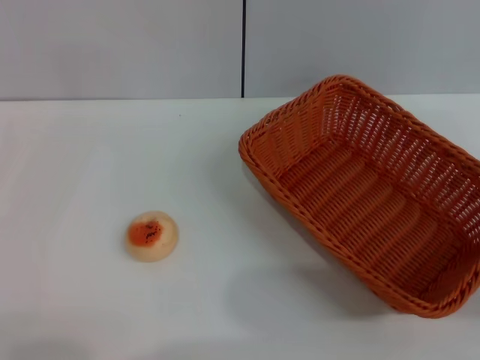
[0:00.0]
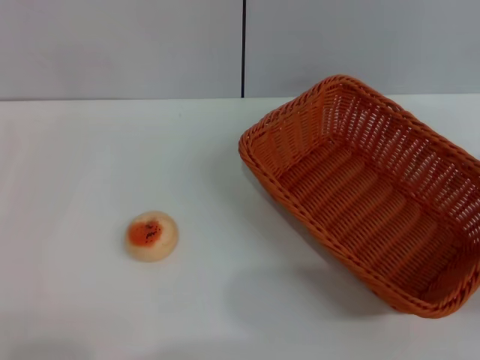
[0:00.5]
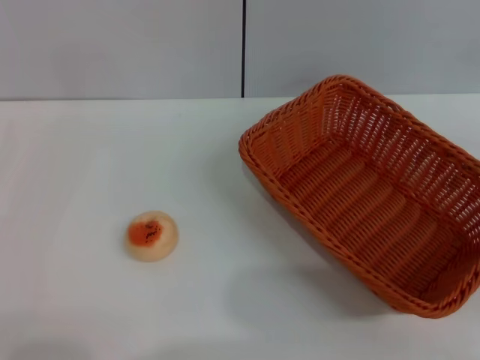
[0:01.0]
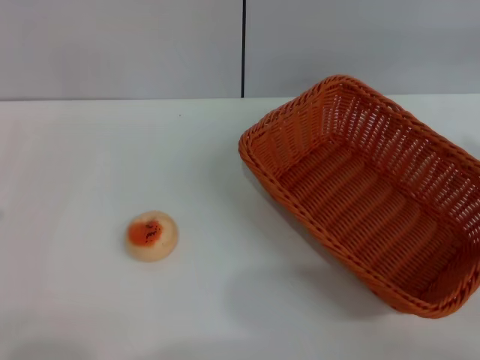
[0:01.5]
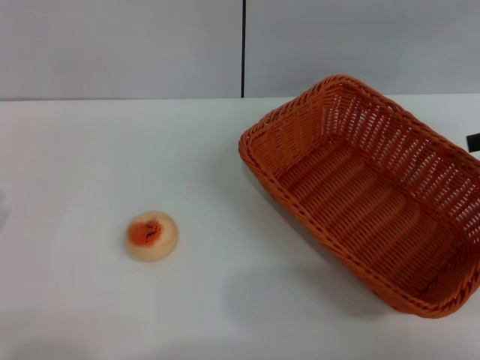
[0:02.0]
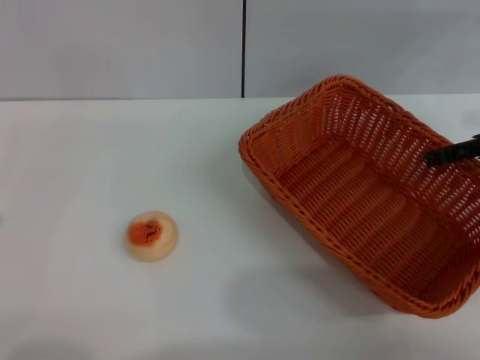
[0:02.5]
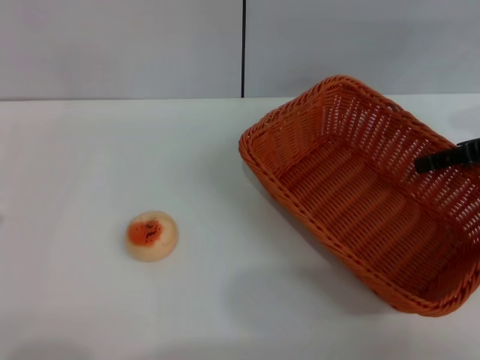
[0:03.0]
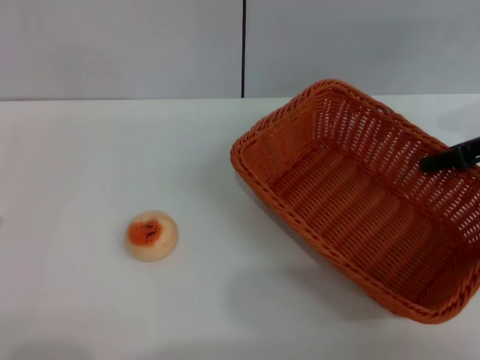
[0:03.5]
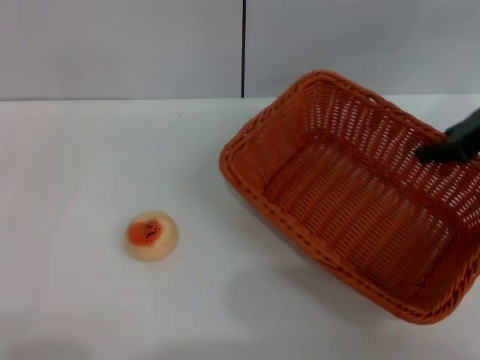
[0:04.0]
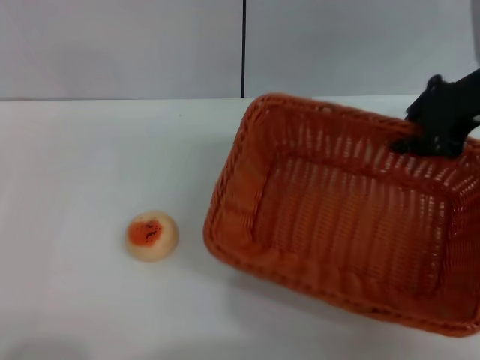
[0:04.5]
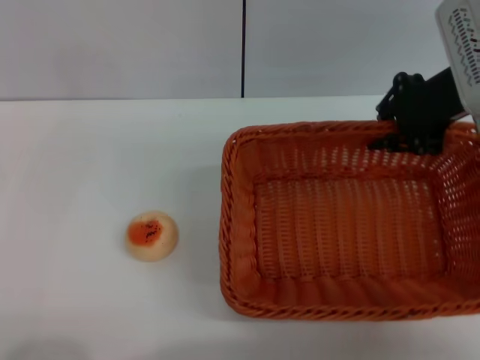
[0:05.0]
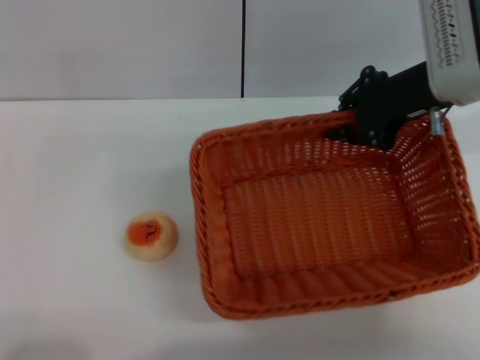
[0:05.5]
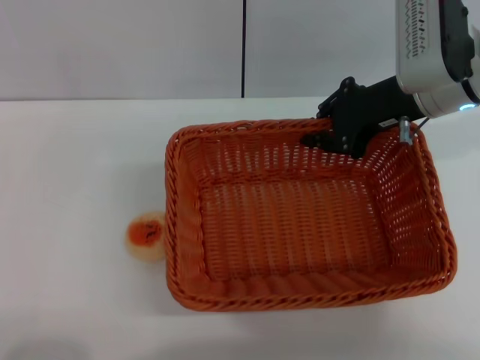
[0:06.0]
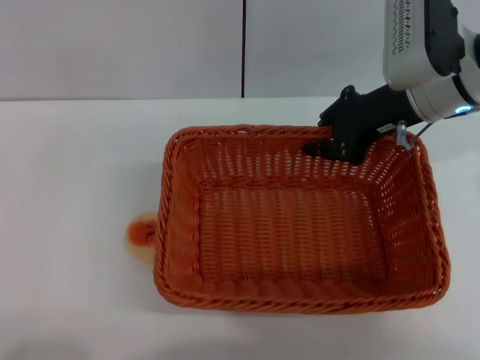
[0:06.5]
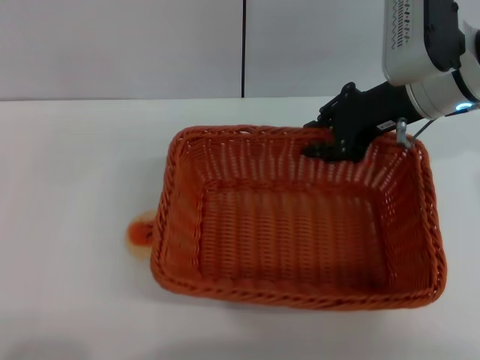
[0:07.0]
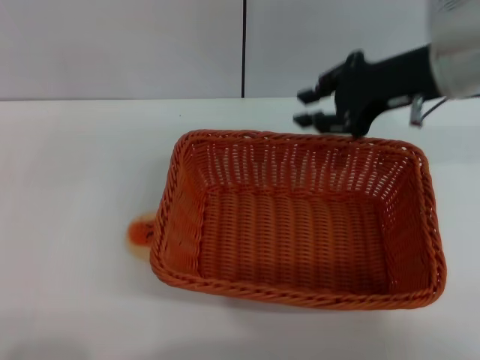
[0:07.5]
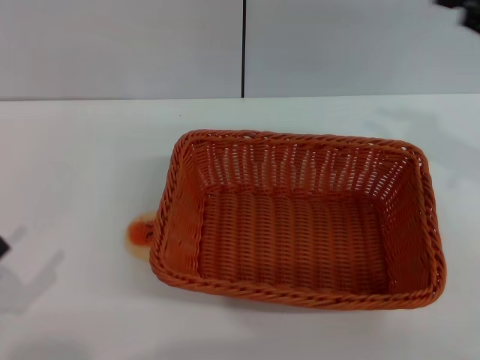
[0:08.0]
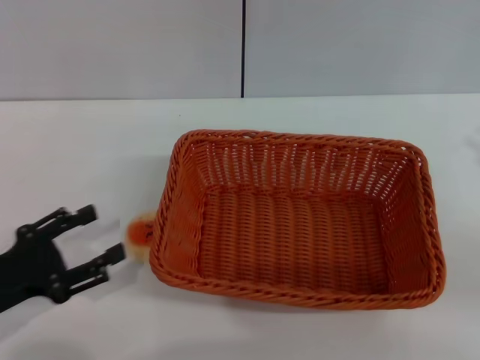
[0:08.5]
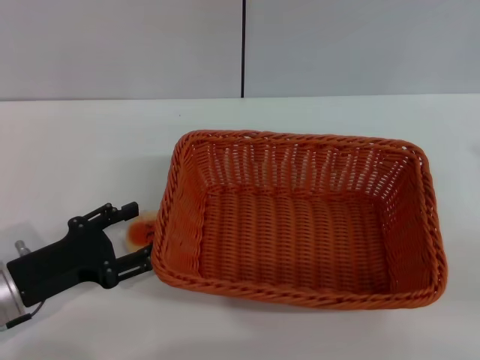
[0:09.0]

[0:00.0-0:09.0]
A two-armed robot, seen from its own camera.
Step, 0:00.0 to 0:07.0: Move the basket to the center of view with the right gripper.
0:02.0 to 0:04.5: The left gripper is displaced backward by roughly 5 cm, while the right gripper heads to the left, covering about 10 cm, and closes up.
0:04.5 to 0:07.0: The right gripper is displaced to the left by about 5 cm.
0:07.0 to 0:09.0: The right gripper travels to the right and backward by some 30 cm. The left gripper shifts approximately 15 cm forward and to the right.

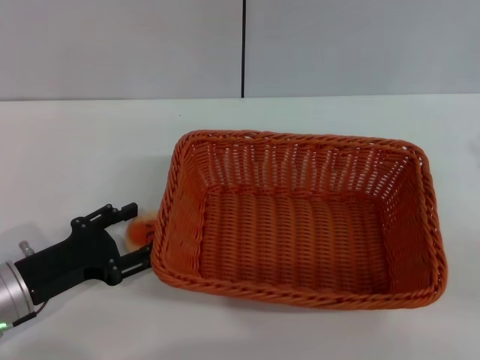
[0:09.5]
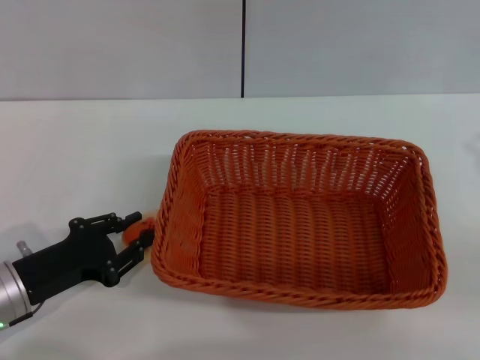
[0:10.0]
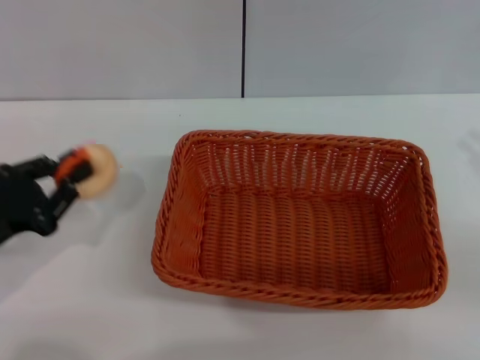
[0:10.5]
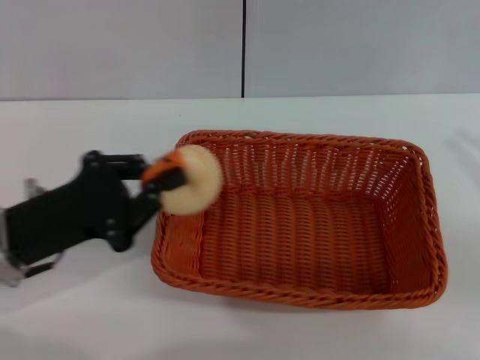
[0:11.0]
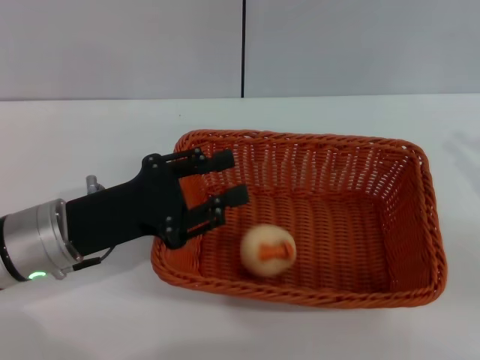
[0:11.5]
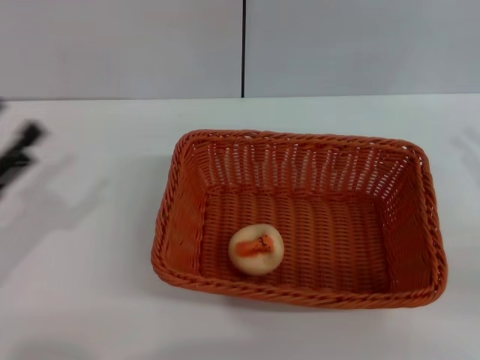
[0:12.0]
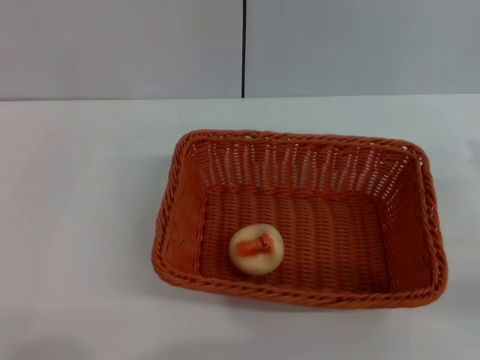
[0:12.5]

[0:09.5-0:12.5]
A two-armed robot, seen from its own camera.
Step, 0:10.5 to 0:11.5: Place the egg yolk pastry into the basket with the left gripper.
0:09.5 to 0:11.0: The left gripper shifts about 5 cm upward, and closes.
0:11.0 to 0:12.5: The right gripper travels downward by some 10 cm, and opens up, while the left gripper heads backward and to the left, covering approximately 20 cm, and opens.

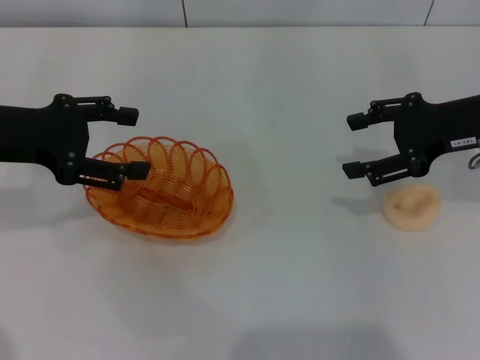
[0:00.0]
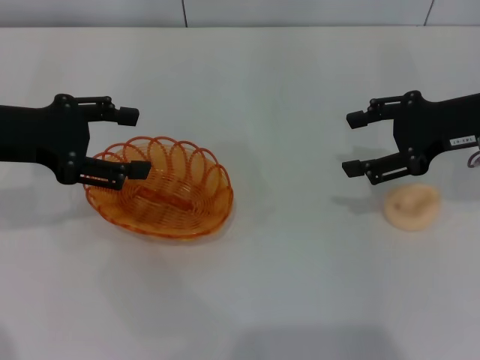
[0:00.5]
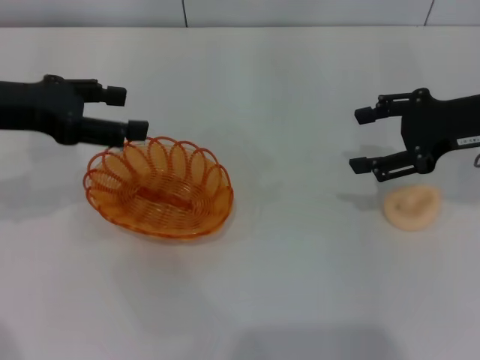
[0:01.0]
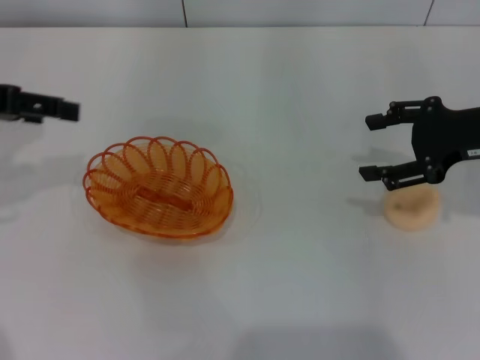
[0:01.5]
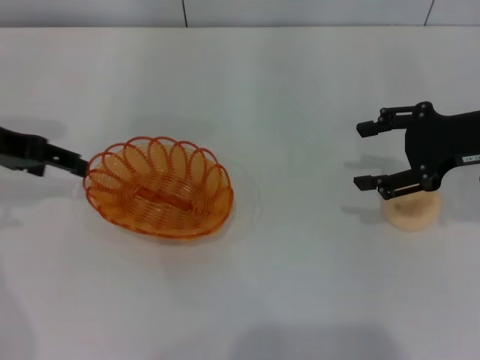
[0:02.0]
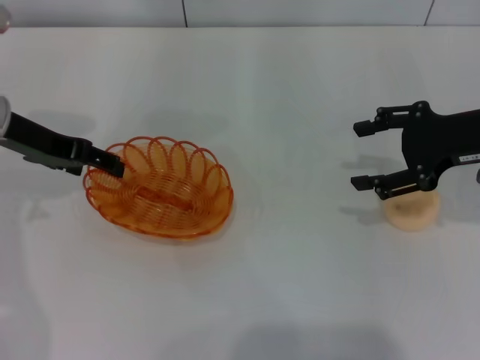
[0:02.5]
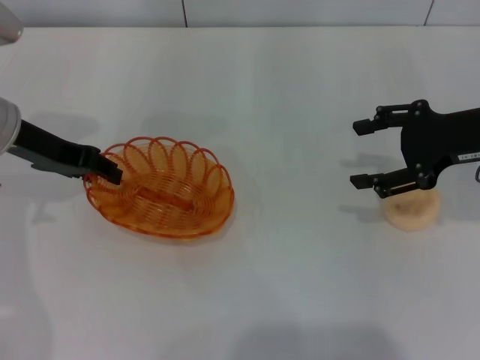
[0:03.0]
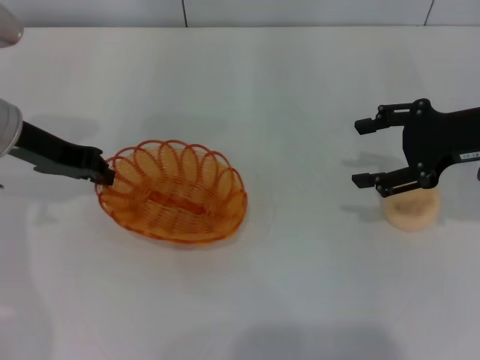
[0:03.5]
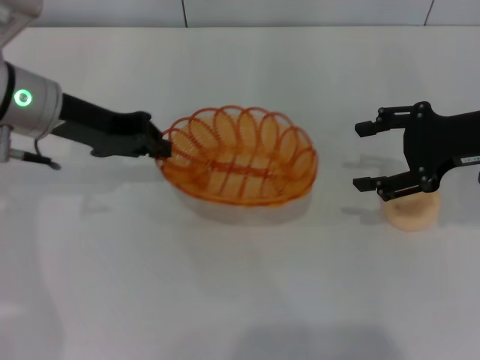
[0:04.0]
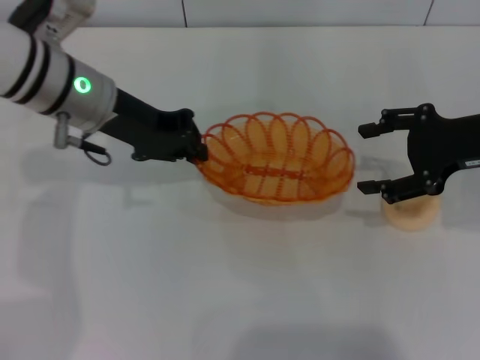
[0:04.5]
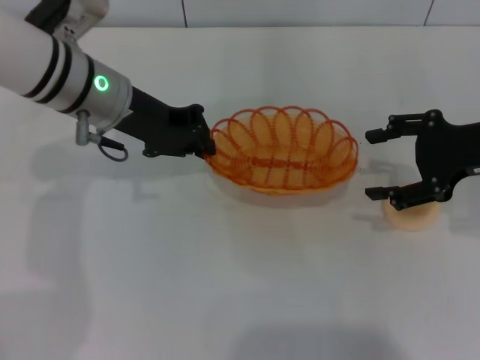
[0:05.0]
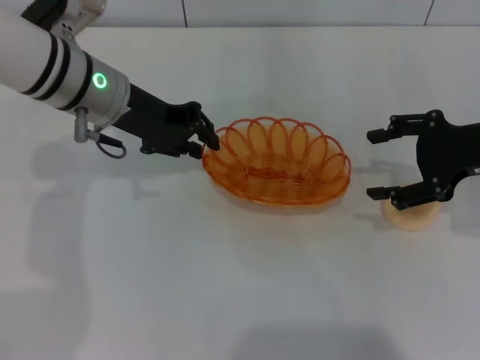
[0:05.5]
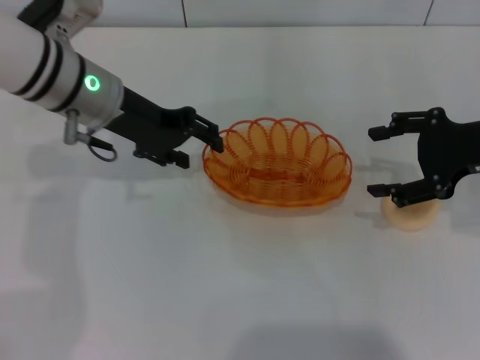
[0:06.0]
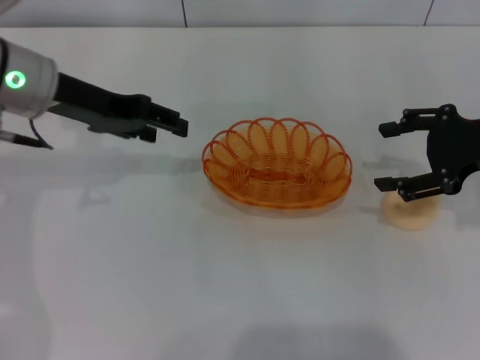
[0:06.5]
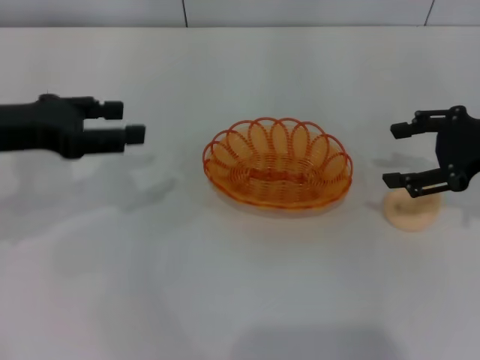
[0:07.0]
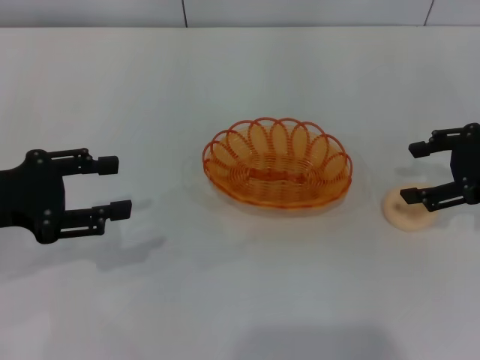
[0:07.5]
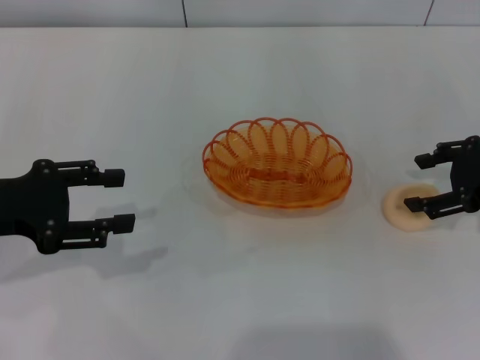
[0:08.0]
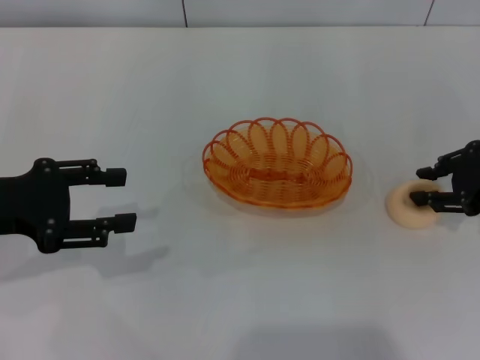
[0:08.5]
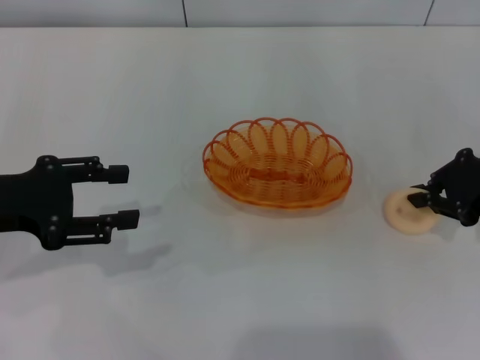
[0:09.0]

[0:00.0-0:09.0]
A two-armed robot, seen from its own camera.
Step, 0:00.0 to 0:04.0: Pick up the basket with the left gripper.
Step, 0:04.5 to 0:06.0: Place the basket in the center of view with the left gripper.
0:02.0 to 0:04.5: The left gripper heads to the right, covering about 15 cm, and closes.
0:04.5 to 0:07.0: The left gripper is displaced to the left and backward by some 15 cm, and opens.
0:07.0 to 0:09.0: The right gripper closes its fingers. Meanwhile the left gripper changes place by about 5 cm.

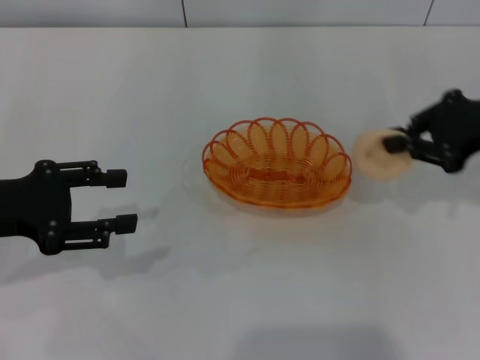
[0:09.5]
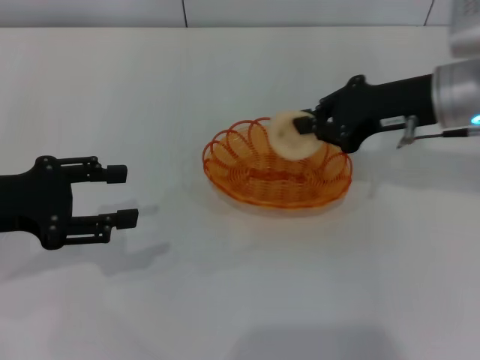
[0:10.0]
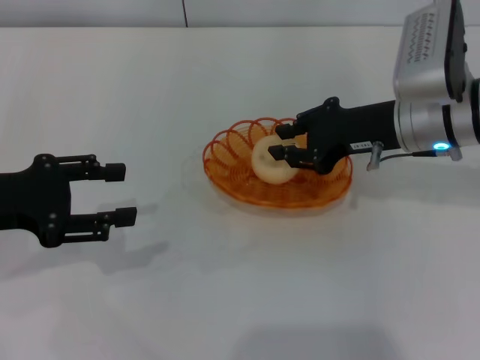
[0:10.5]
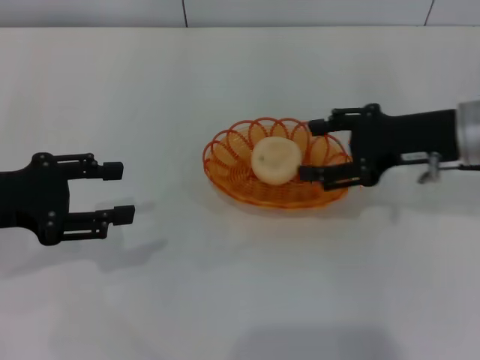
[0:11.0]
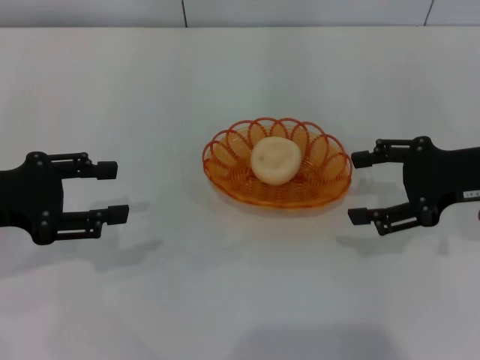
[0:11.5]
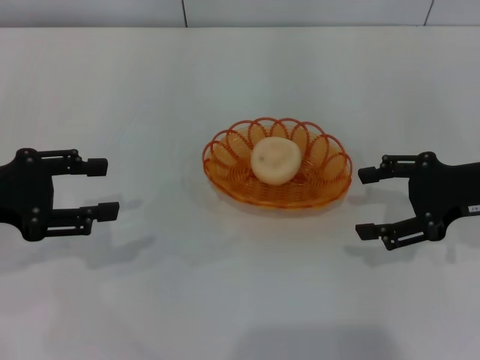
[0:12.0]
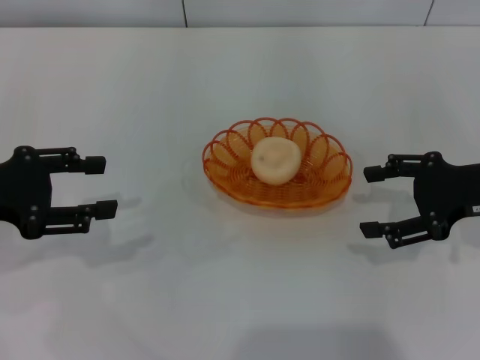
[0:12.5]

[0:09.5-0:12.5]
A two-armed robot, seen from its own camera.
Step, 0:09.5 to 0:11.0: Place the egg yolk pastry into the basket with the right gripper.
0:09.5 to 0:11.0: The right gripper travels to the left by some 5 cm, and opens up.
0:11.0 to 0:12.5: The right gripper heads to the right, covering approximately 5 cm, and opens.
